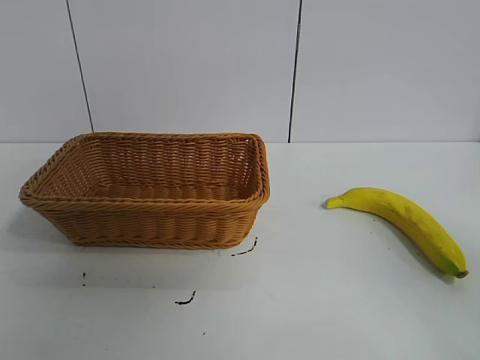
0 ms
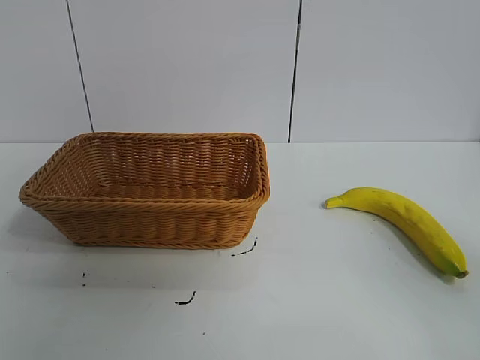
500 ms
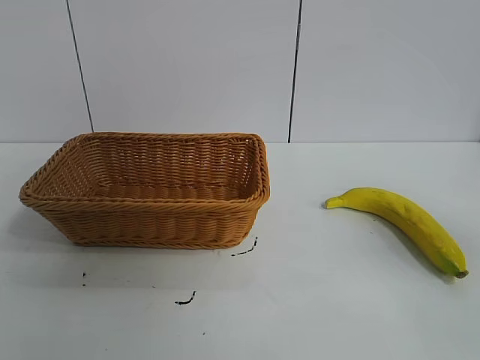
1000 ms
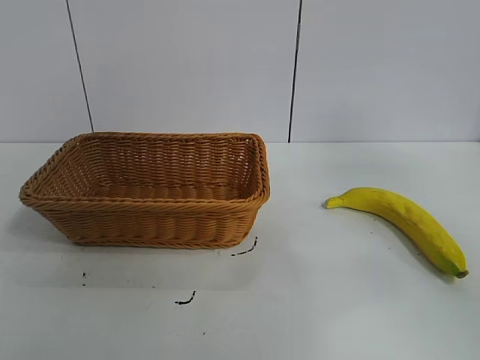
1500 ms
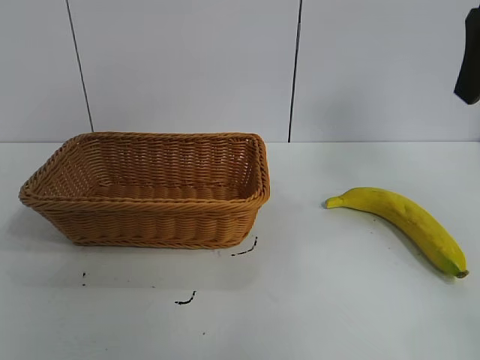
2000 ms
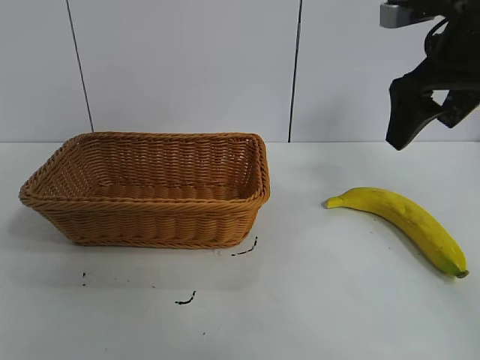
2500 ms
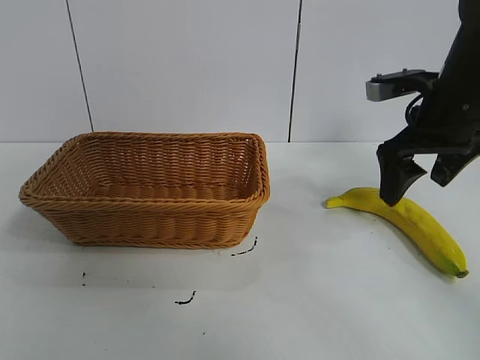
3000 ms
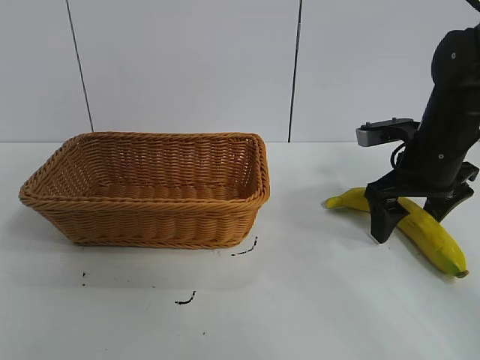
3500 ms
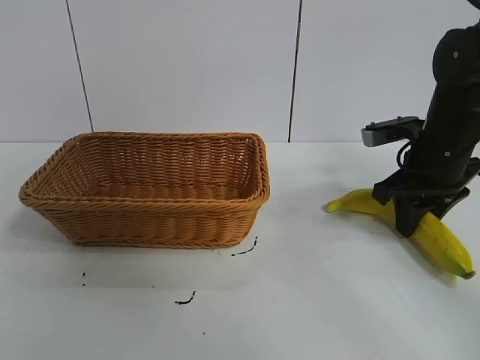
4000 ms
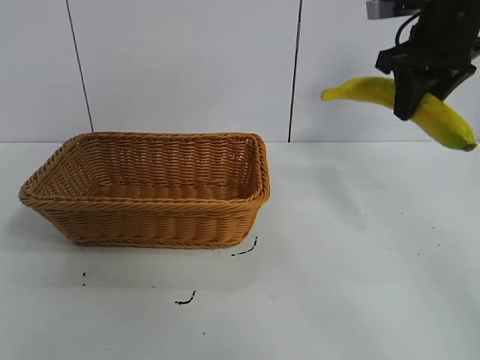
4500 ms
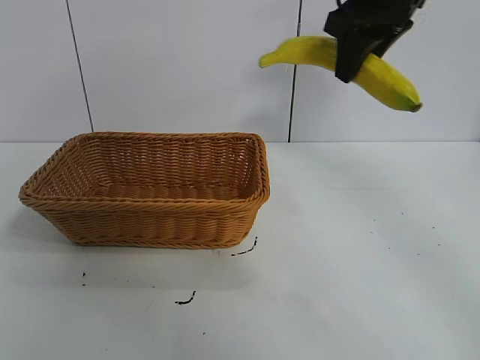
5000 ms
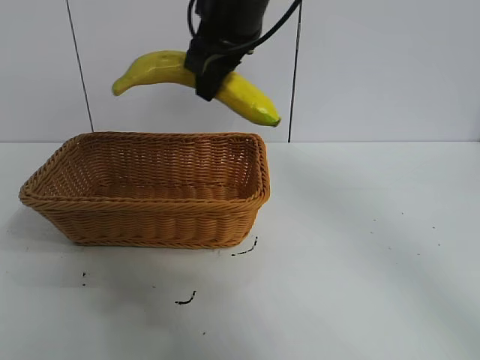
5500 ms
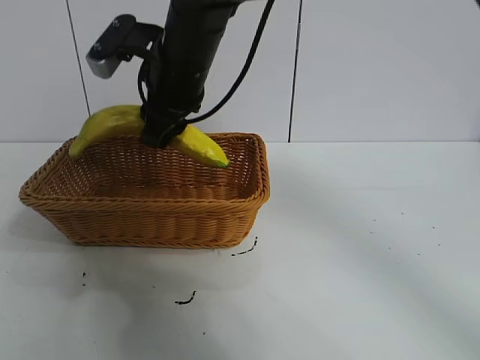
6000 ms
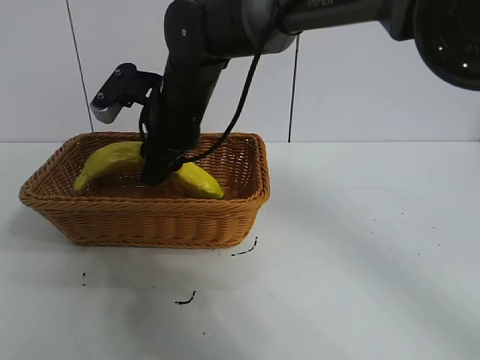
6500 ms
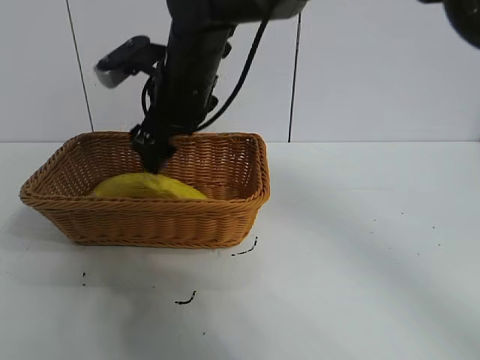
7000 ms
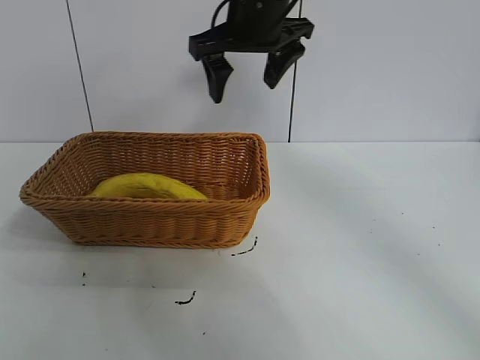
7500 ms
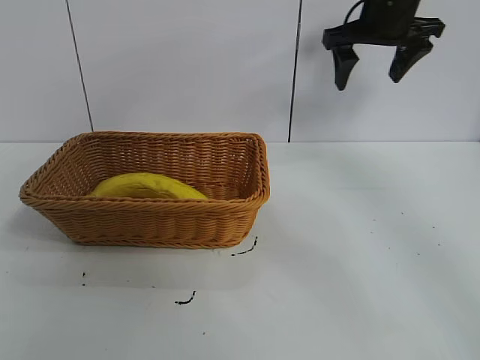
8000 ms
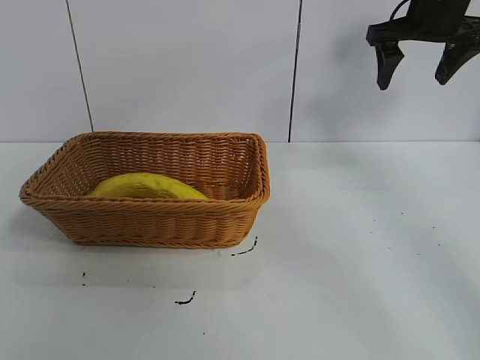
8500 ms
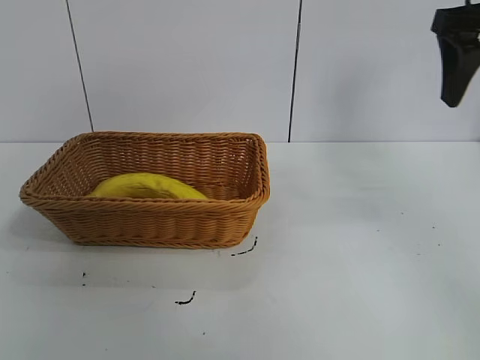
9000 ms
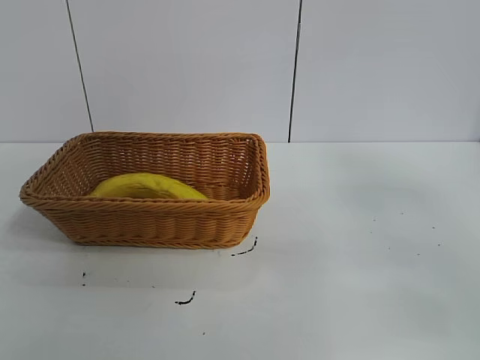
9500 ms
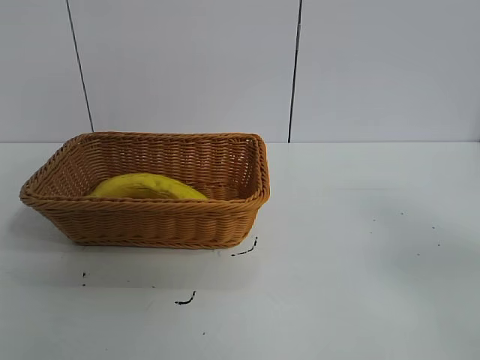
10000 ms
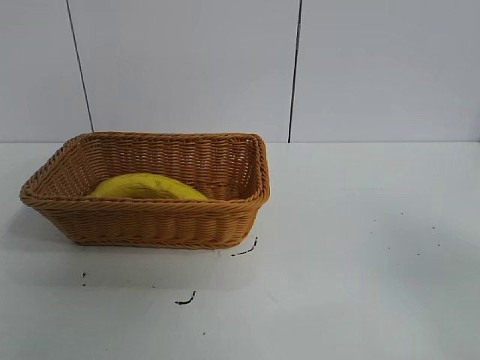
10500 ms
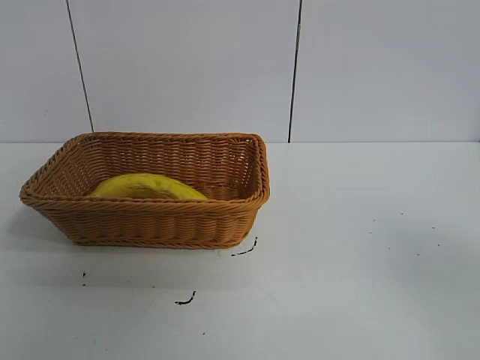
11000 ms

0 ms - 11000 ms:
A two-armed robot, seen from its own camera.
Task of the whole recording: pick up the banana and put it into the basket.
Step, 1000 ms - 3500 ms: Grasp the banana with right gripper.
Step, 4000 ms - 6500 ms: Place the banana in the basket with right gripper.

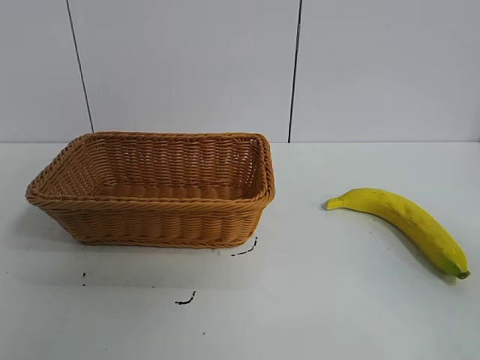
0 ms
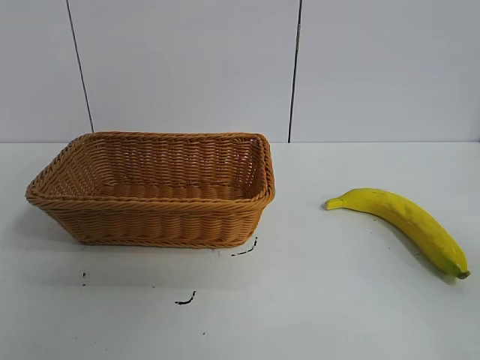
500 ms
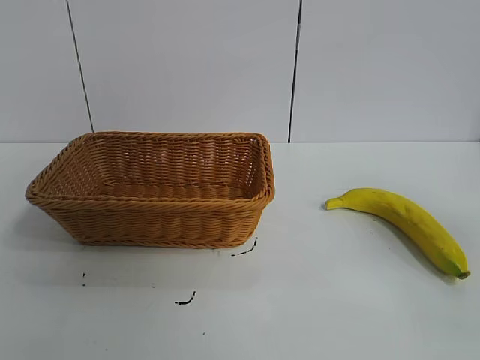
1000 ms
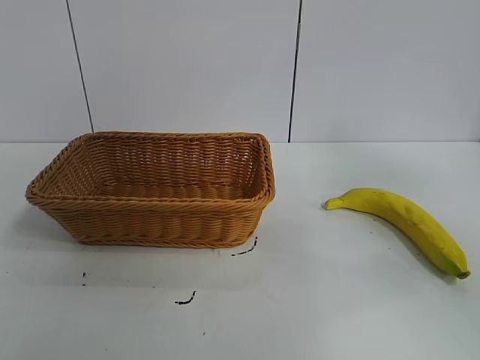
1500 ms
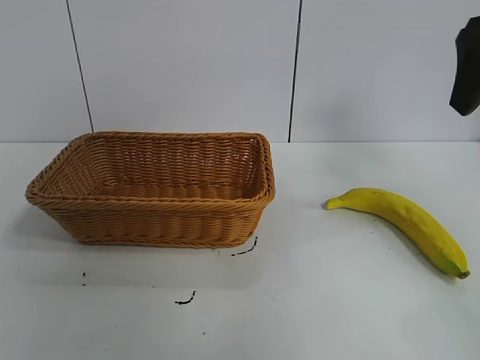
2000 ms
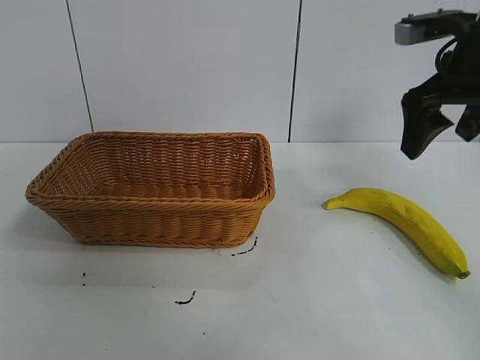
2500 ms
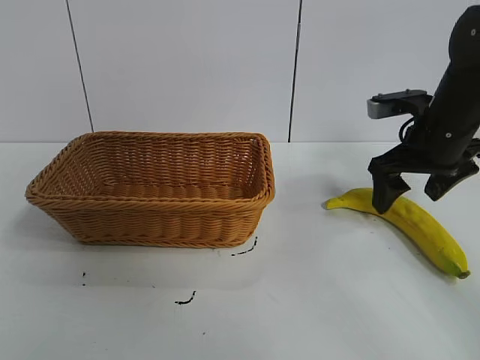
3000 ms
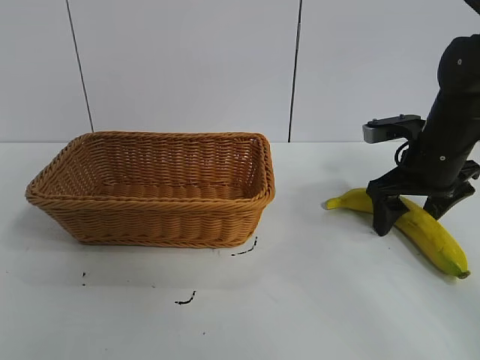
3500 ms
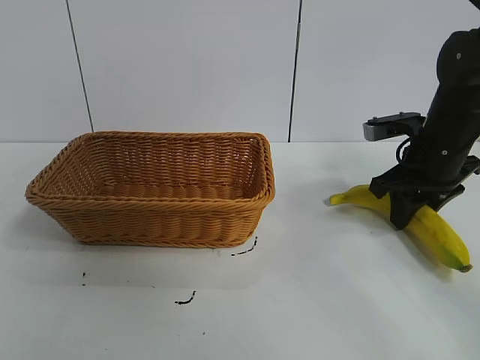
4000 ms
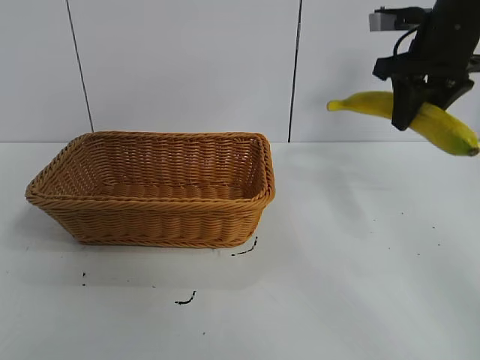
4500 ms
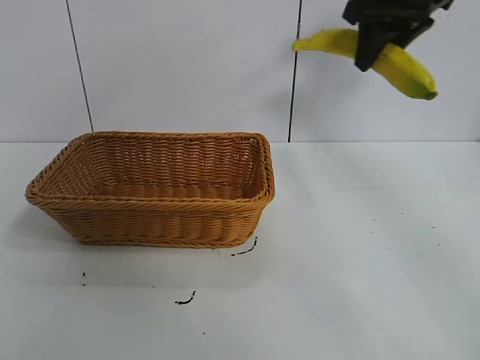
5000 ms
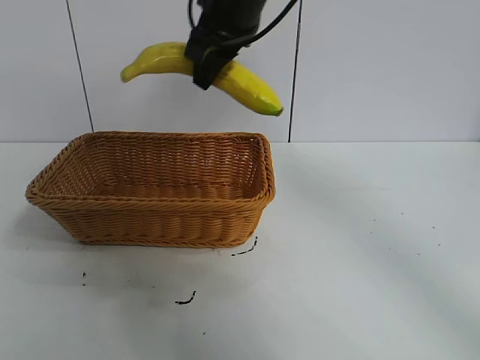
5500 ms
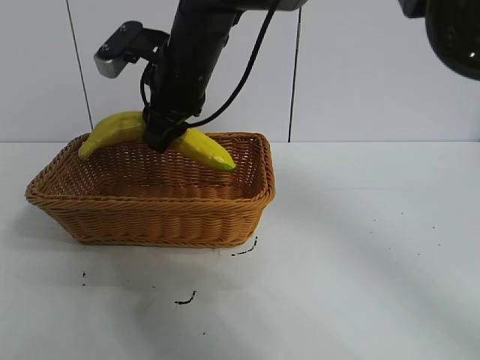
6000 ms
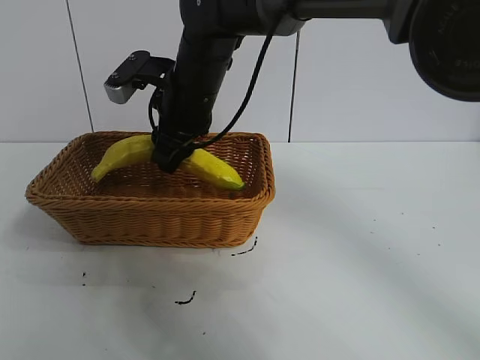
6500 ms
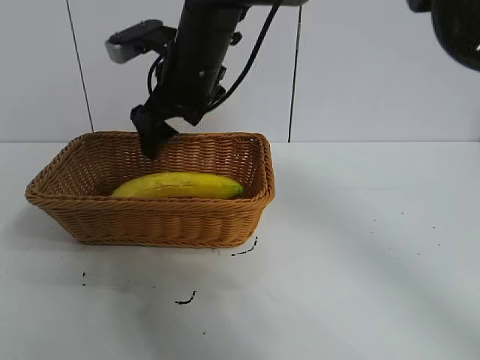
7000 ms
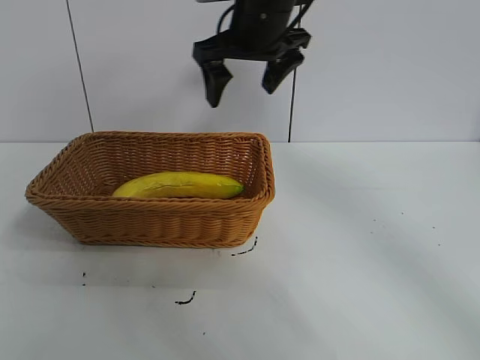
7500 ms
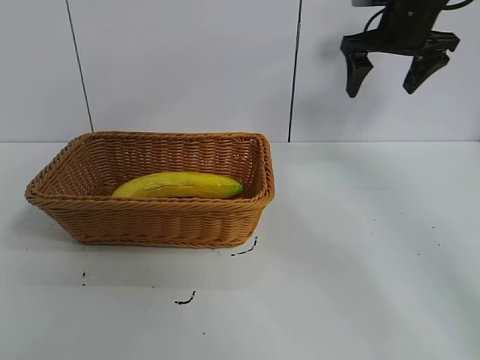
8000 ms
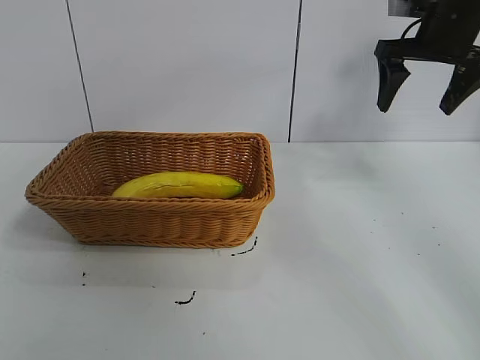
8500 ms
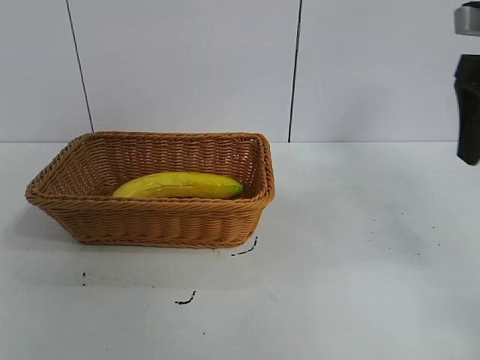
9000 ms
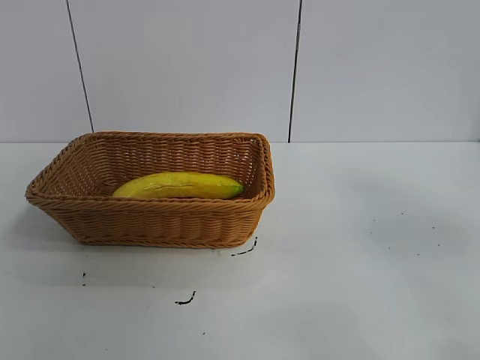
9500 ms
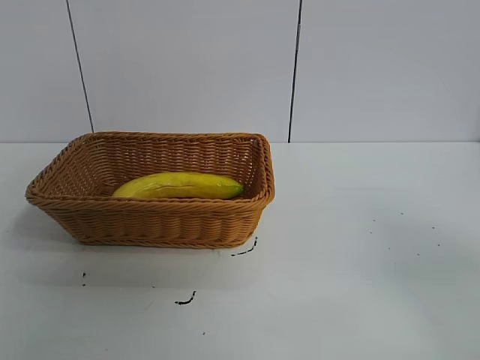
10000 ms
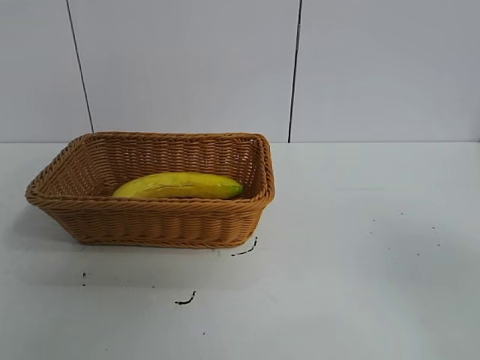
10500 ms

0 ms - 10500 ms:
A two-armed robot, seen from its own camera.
Task of the whole recording: pick up the banana and put it into the basket.
Step, 1000 ms - 3500 ms: Grasp the banana with right gripper.
Step, 4000 ms - 6500 ms: Place the banana in the basket with right gripper.

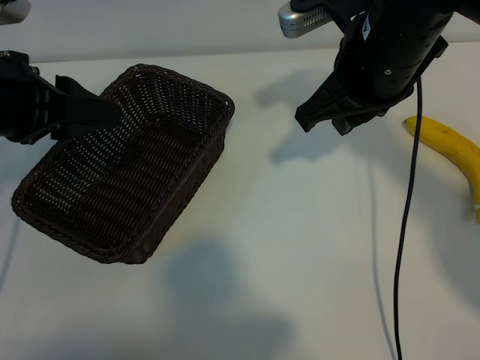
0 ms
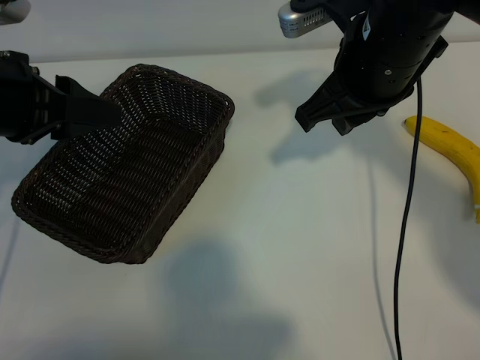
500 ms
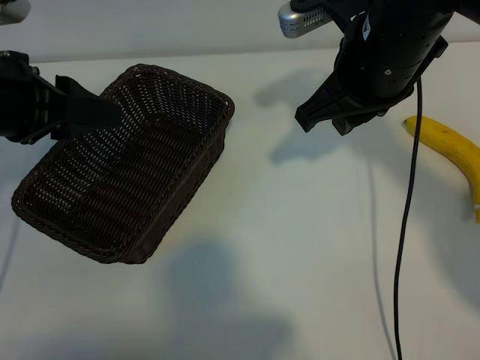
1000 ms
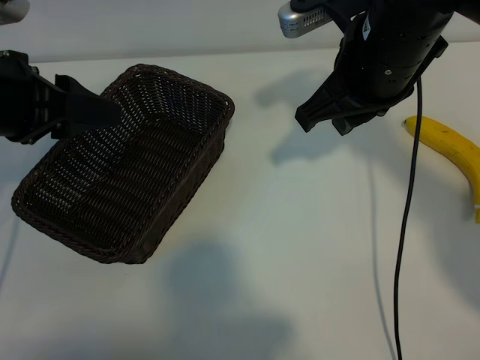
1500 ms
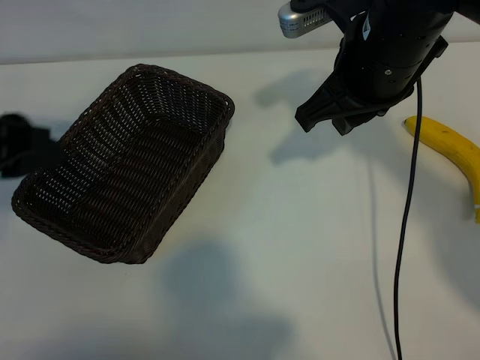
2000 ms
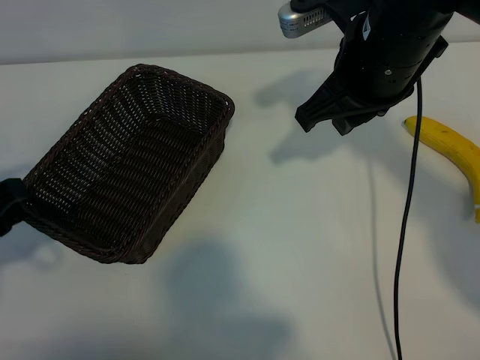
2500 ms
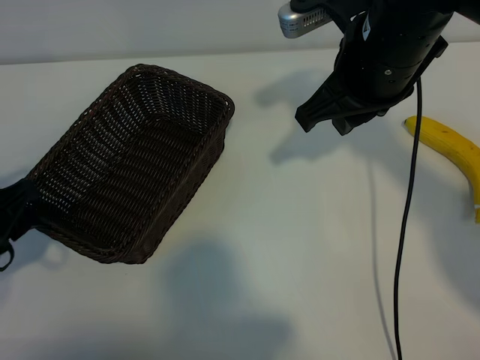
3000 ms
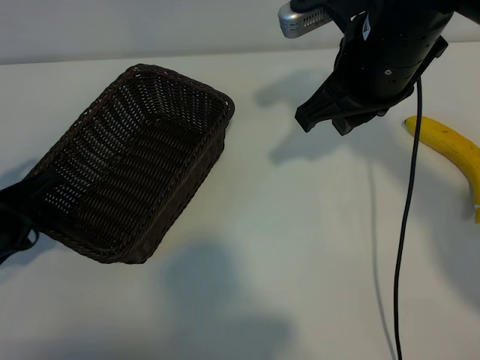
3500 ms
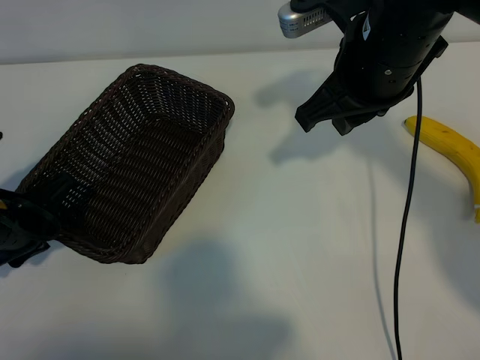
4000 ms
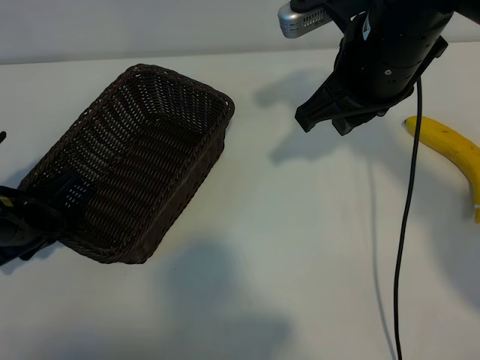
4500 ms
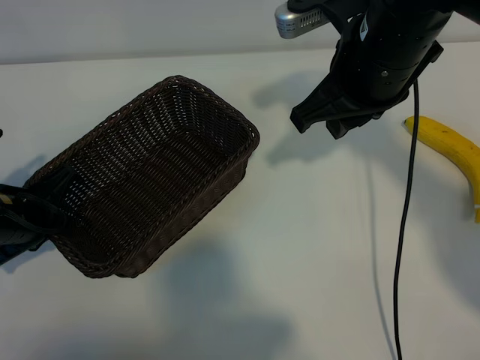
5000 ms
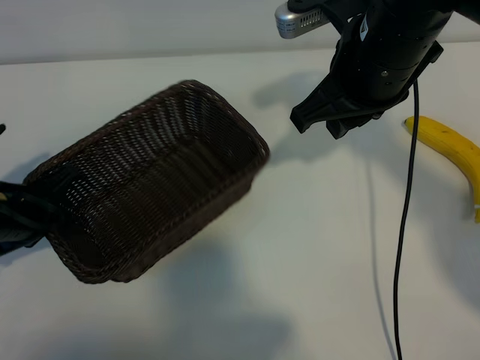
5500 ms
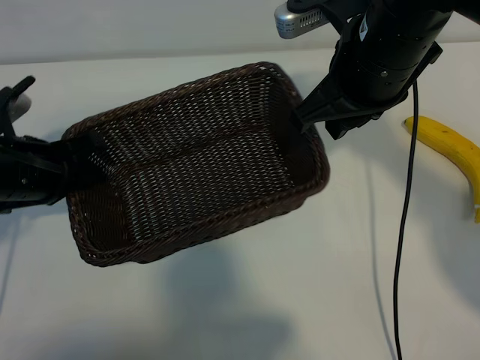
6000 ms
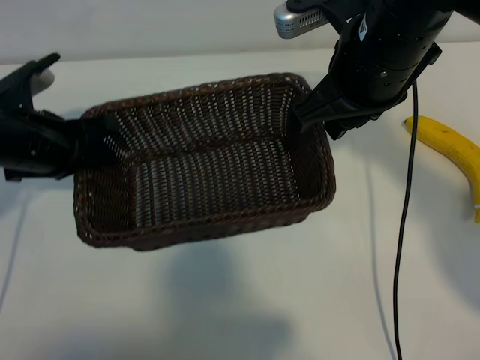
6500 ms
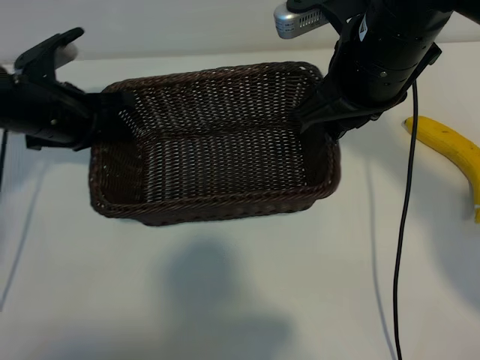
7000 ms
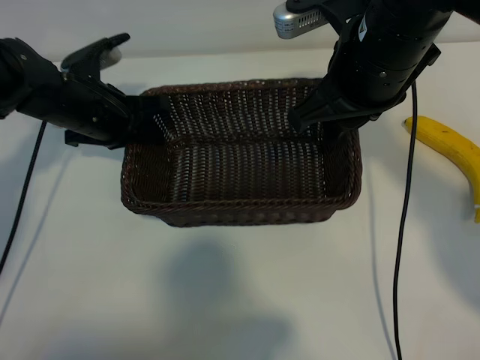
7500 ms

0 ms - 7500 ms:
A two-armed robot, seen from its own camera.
Task of the whole recording: pick up the banana and put it into the basket.
Step, 1500 ms - 5000 ms: Grasp the basket with the left gripper.
